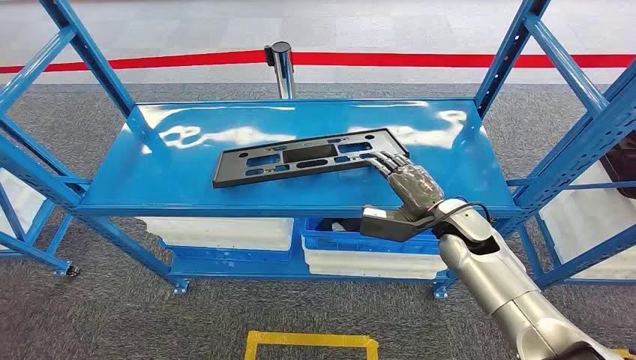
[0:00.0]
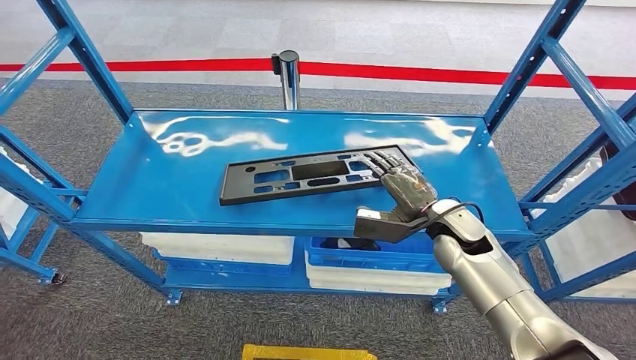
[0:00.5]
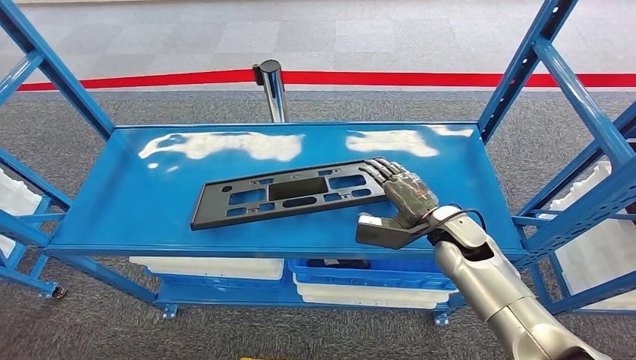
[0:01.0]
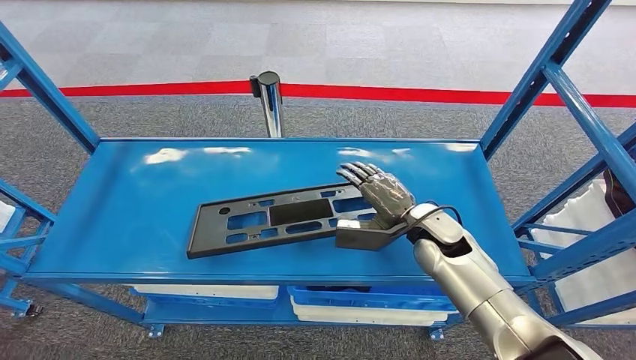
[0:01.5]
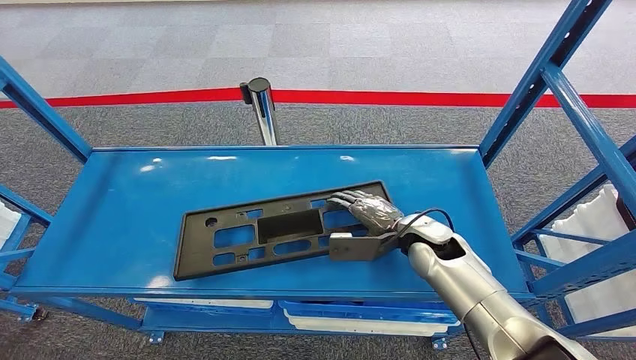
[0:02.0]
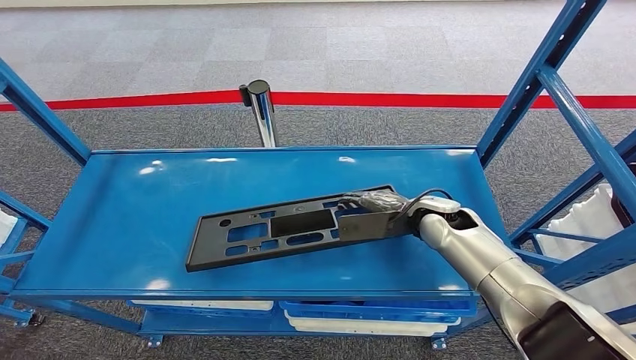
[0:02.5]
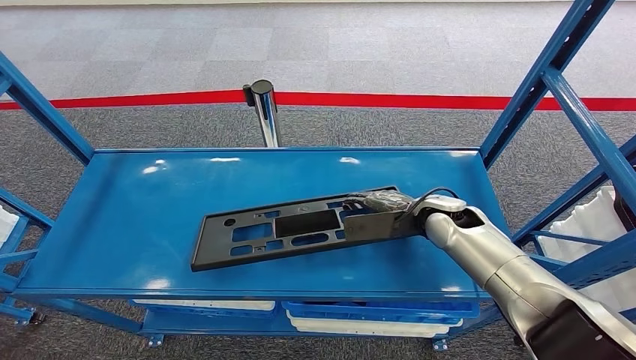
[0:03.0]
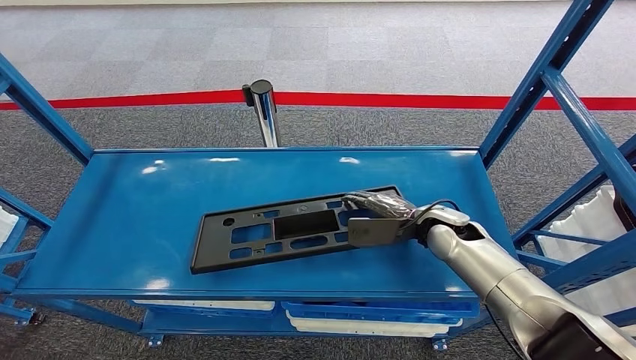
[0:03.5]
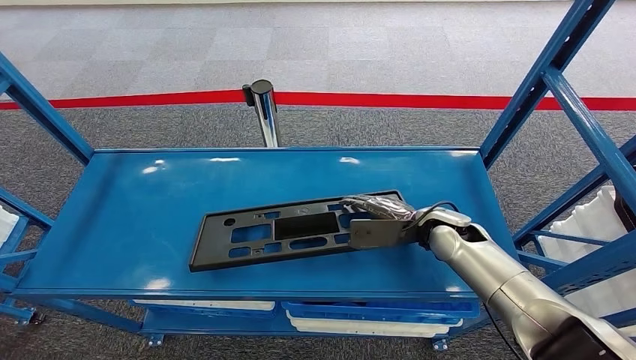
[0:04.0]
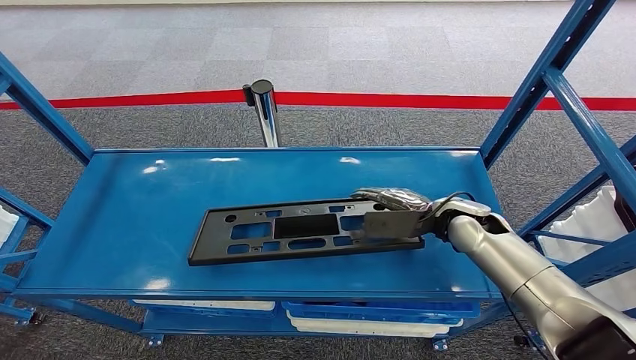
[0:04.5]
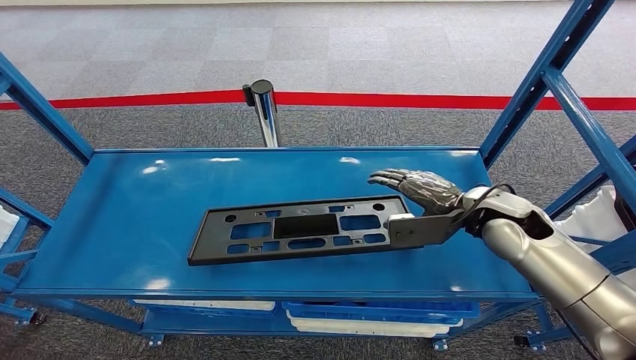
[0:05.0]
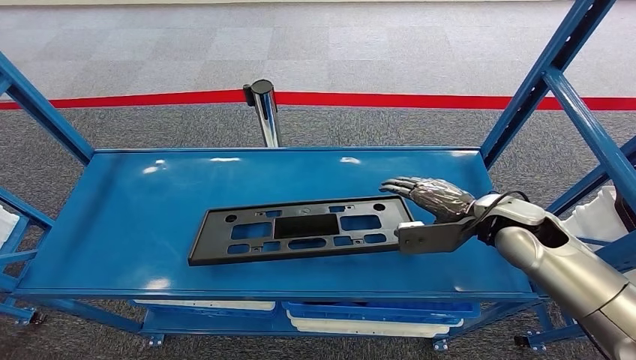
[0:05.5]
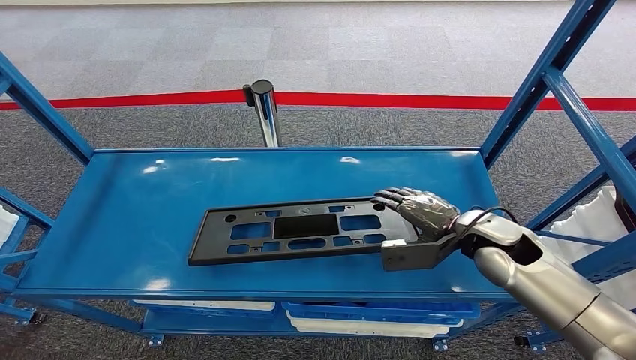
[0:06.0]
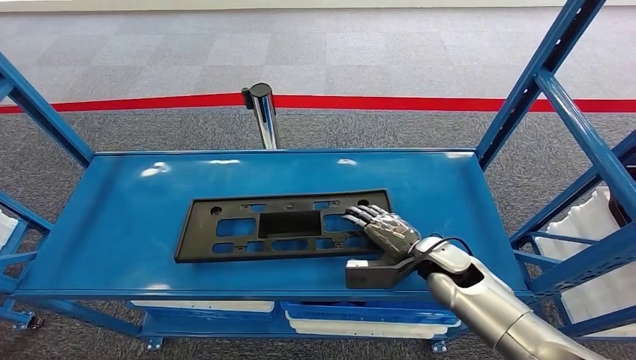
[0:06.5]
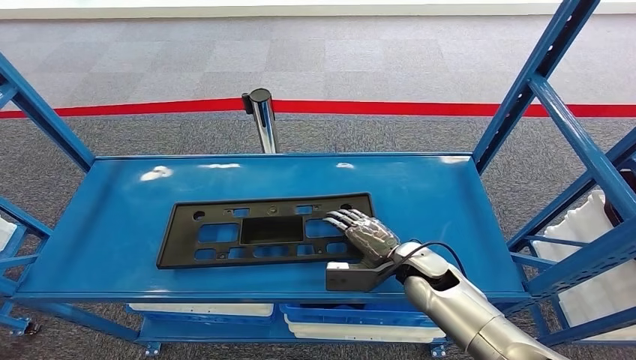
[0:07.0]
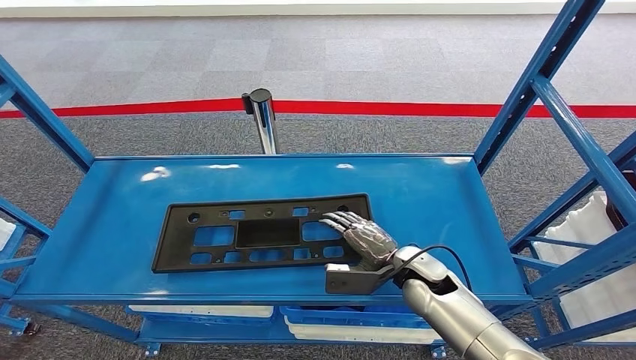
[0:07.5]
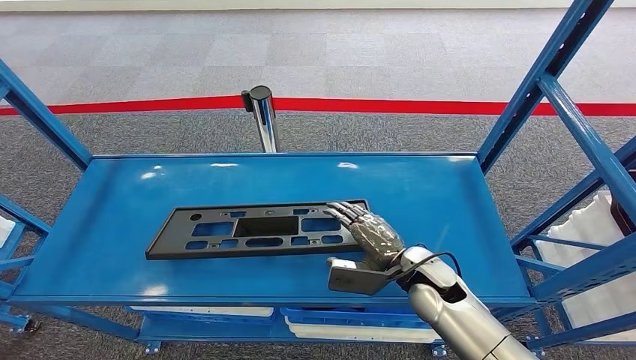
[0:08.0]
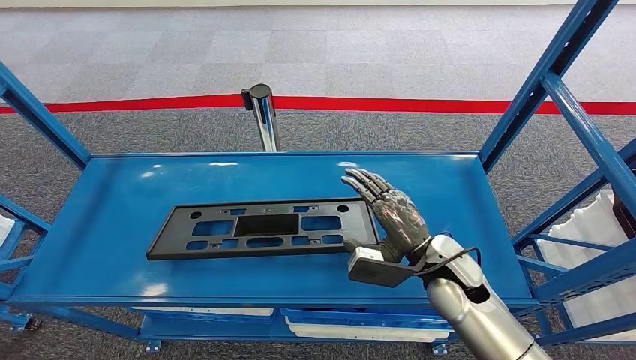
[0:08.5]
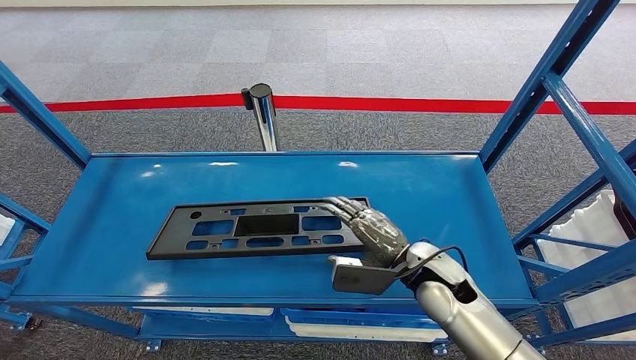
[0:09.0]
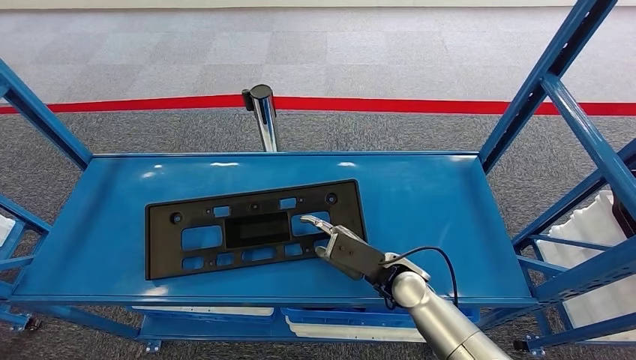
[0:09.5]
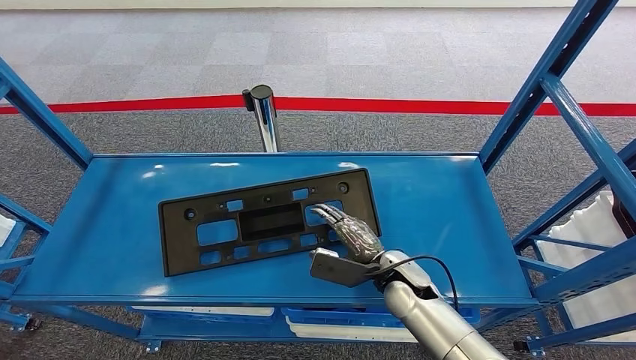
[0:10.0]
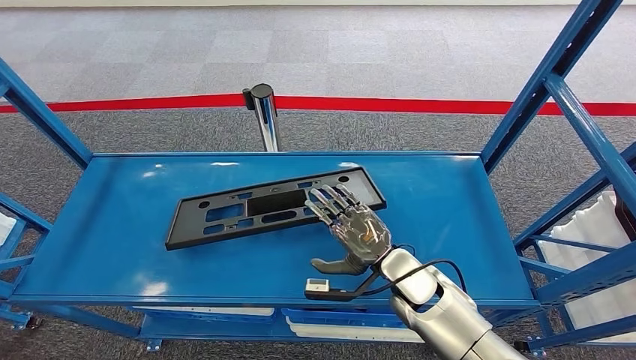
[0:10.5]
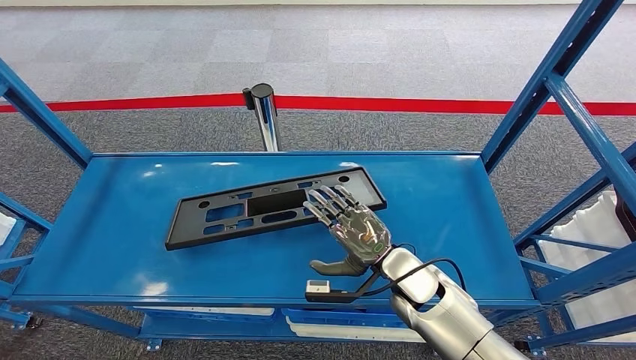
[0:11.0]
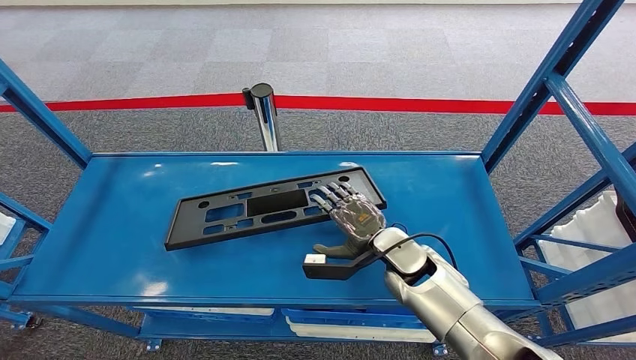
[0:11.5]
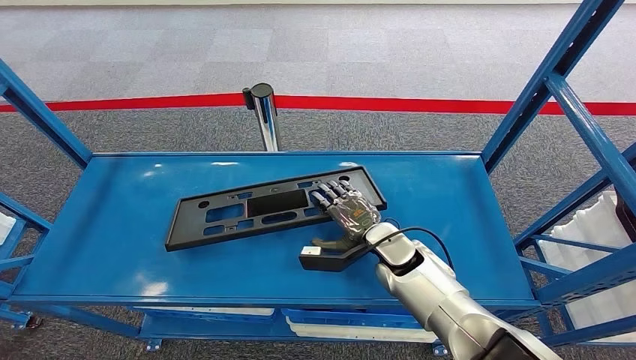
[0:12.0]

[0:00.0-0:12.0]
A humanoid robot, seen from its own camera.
0:04.0 to 0:06.0: The right hand shifts approximately 5 cm to the right.
0:10.0 to 0:12.0: The right hand shifts by approximately 5 cm.

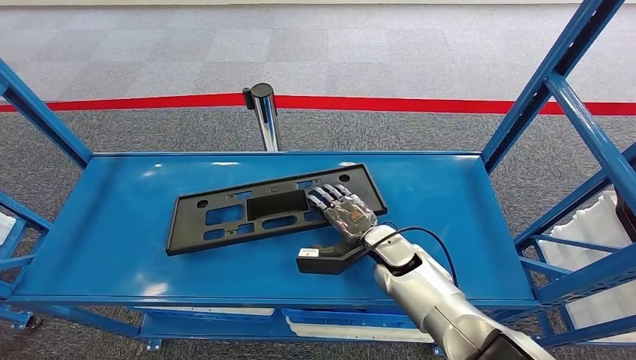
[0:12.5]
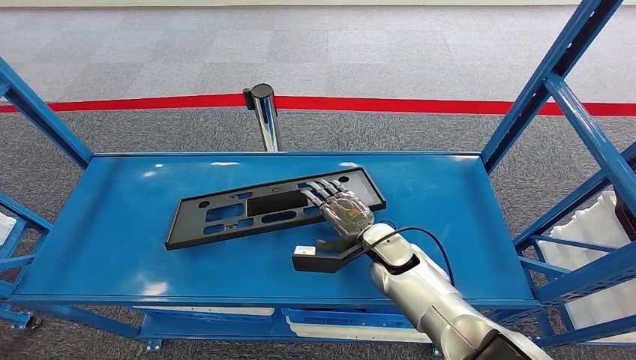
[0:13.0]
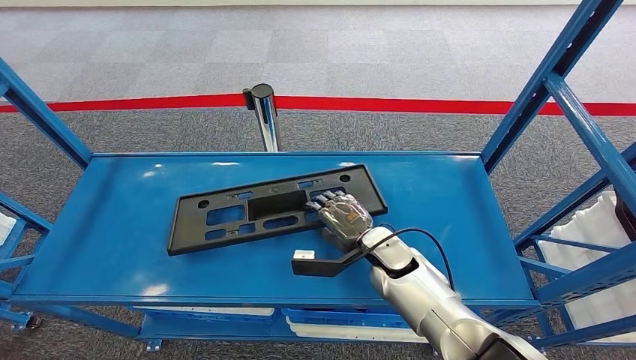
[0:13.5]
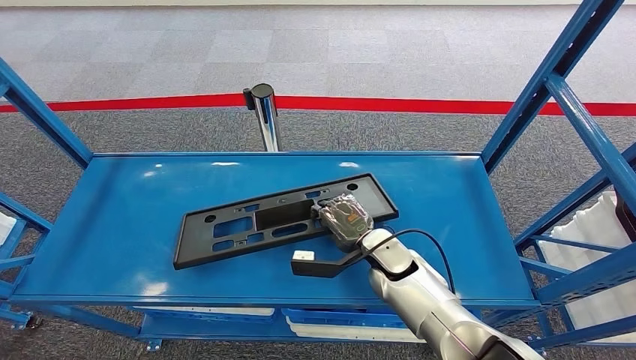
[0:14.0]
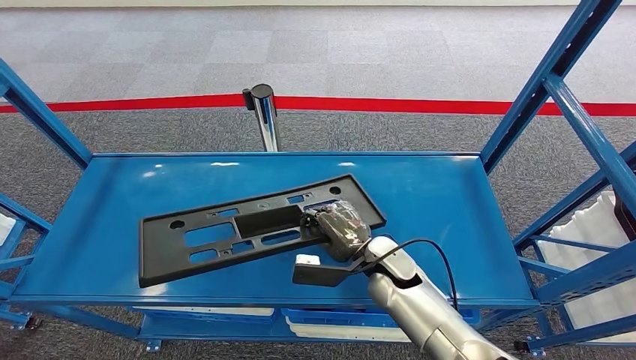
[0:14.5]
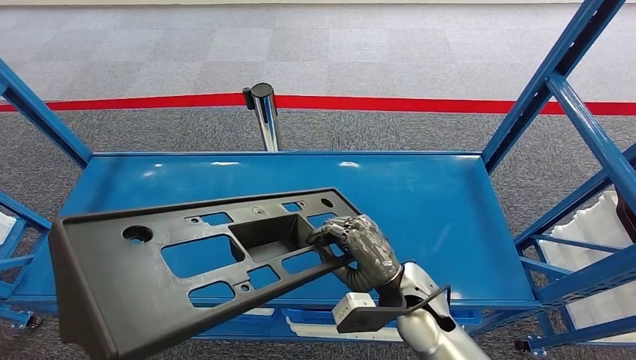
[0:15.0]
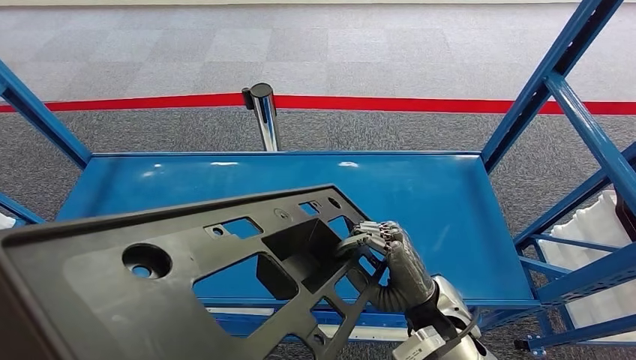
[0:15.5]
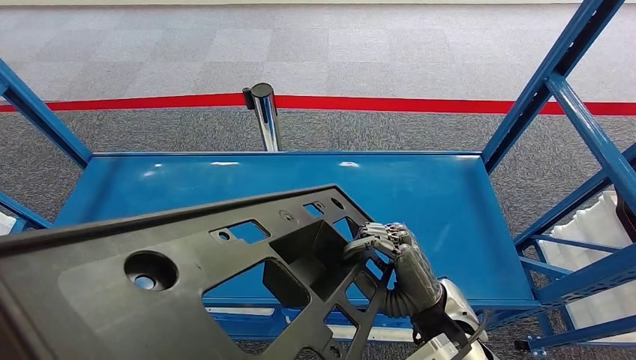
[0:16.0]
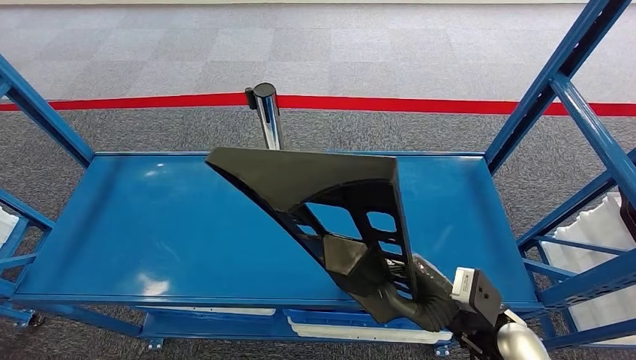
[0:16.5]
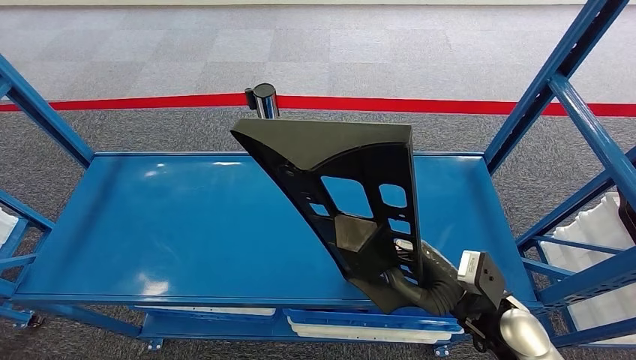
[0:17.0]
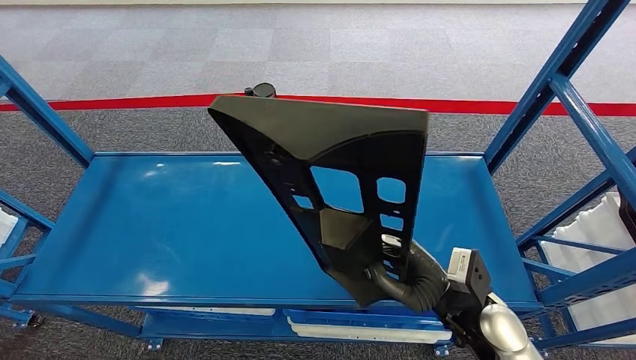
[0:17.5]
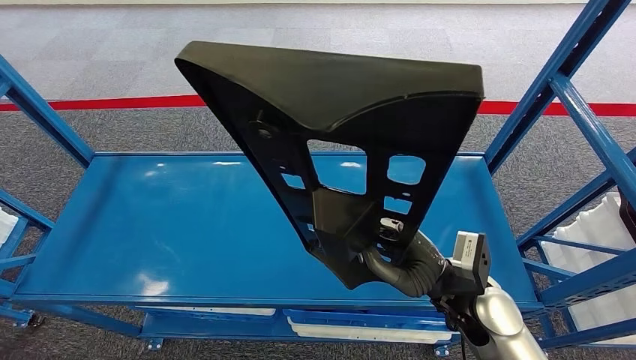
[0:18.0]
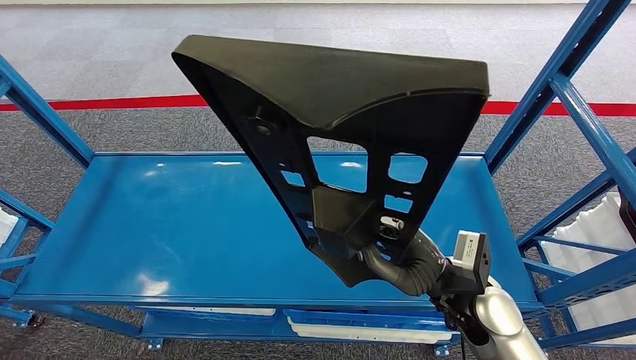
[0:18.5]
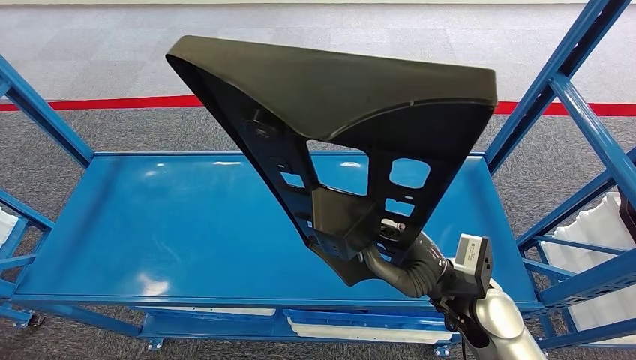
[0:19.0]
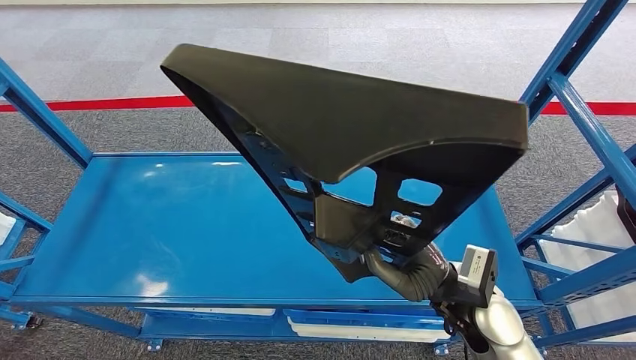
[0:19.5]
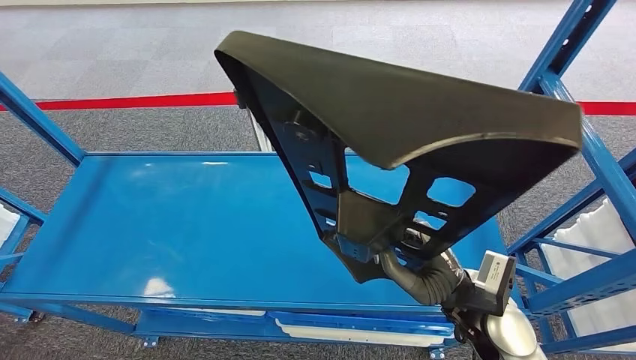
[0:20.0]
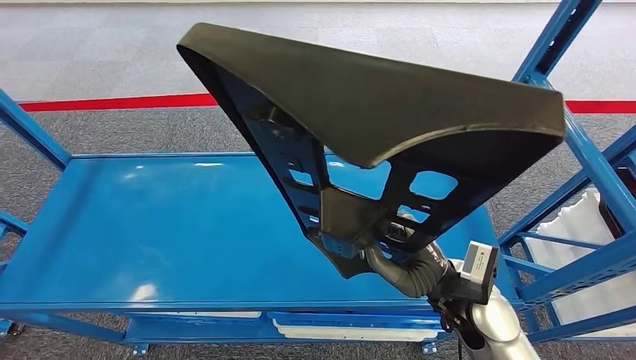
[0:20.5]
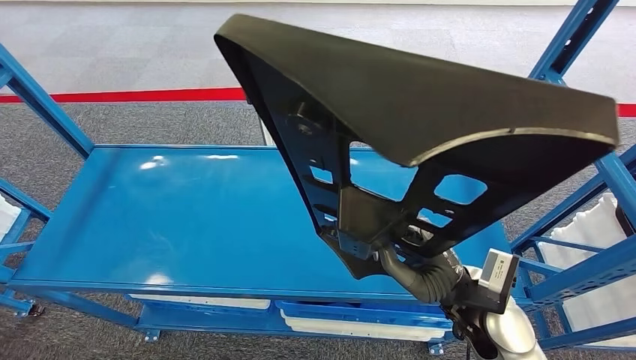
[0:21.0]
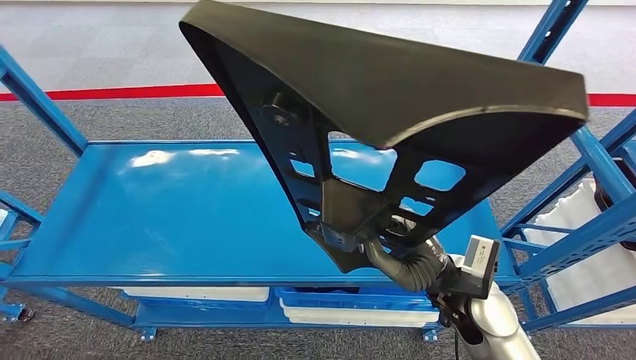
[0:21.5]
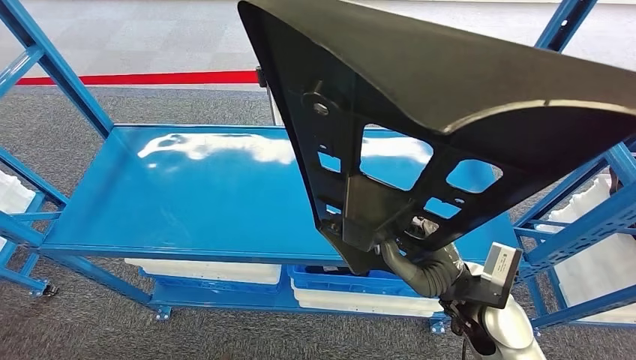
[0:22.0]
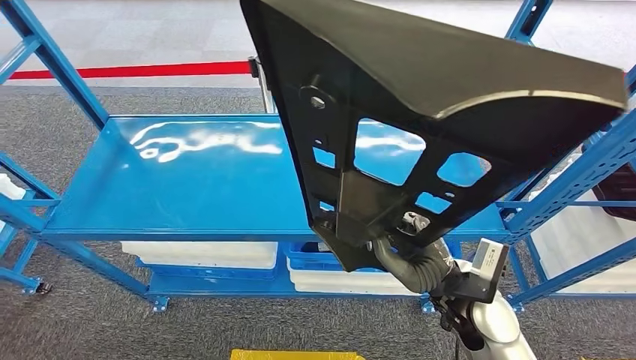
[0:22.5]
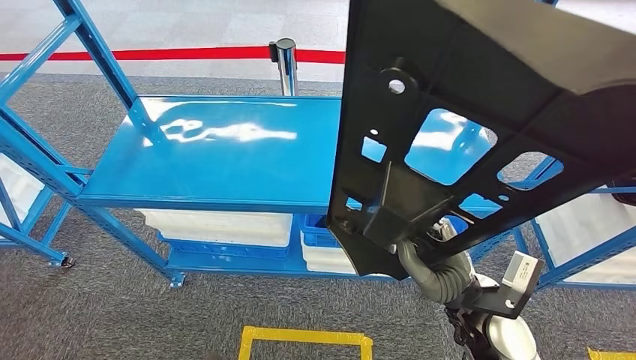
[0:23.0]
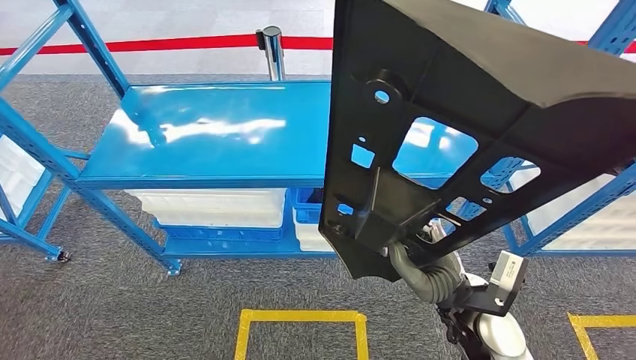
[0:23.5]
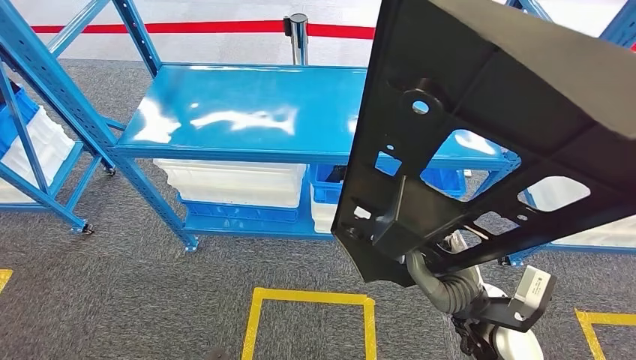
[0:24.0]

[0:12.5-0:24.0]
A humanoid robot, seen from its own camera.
Step, 0:12.5 to 0:16.0: Pick up the large material from the shelf.
